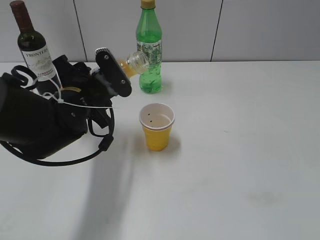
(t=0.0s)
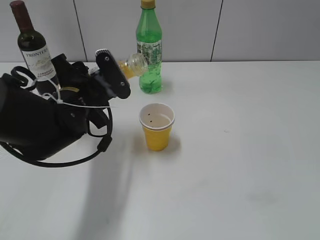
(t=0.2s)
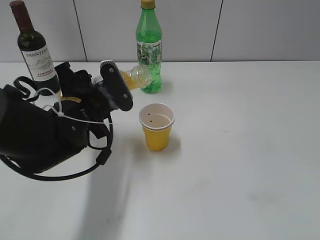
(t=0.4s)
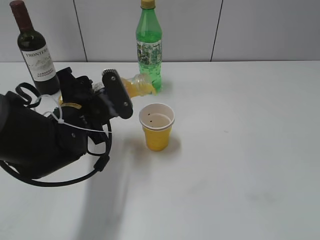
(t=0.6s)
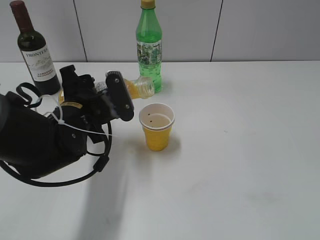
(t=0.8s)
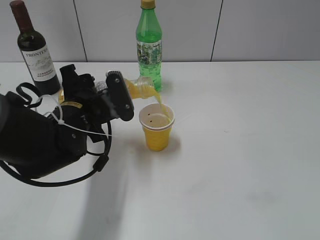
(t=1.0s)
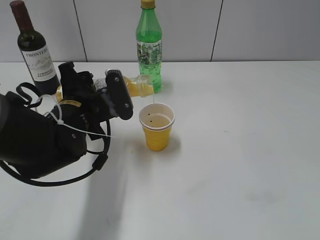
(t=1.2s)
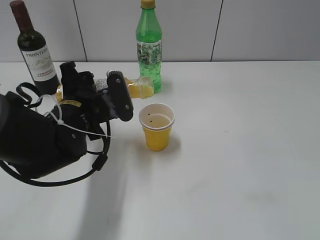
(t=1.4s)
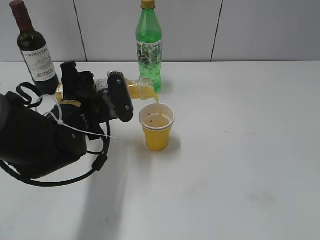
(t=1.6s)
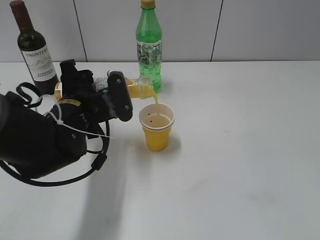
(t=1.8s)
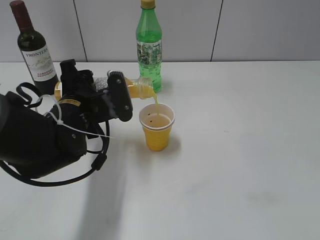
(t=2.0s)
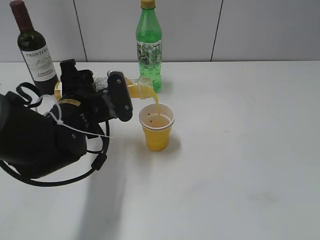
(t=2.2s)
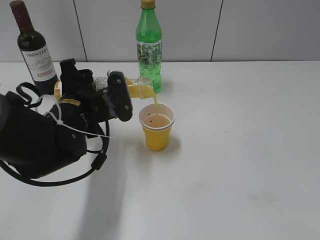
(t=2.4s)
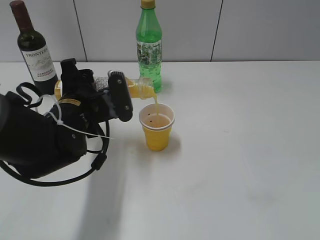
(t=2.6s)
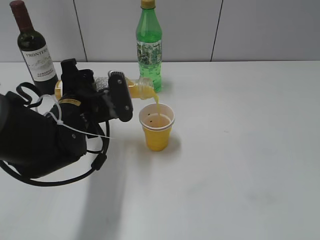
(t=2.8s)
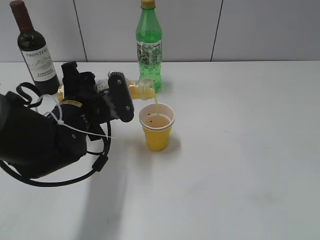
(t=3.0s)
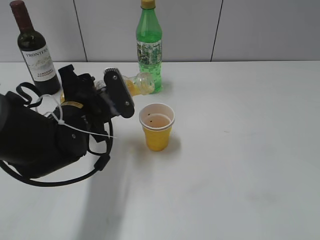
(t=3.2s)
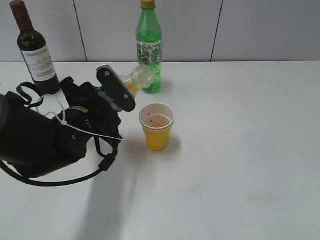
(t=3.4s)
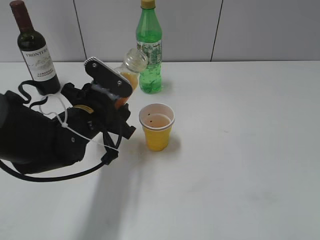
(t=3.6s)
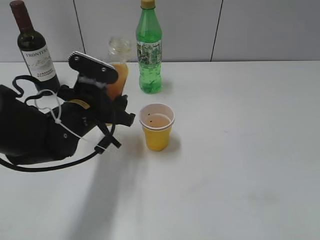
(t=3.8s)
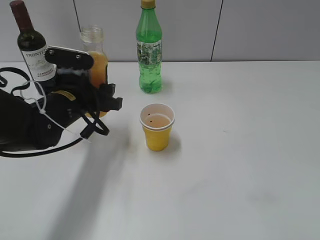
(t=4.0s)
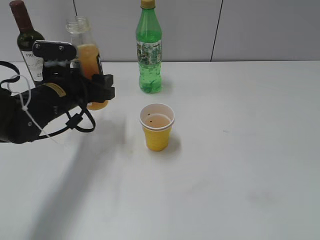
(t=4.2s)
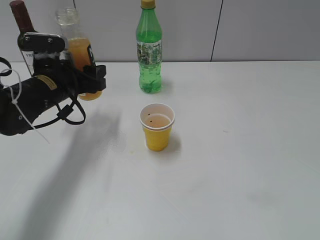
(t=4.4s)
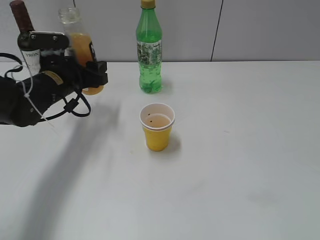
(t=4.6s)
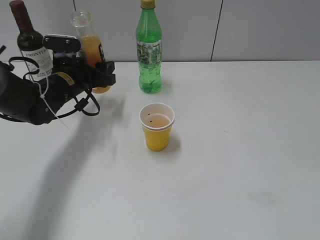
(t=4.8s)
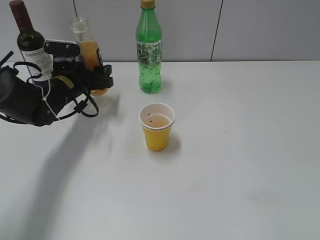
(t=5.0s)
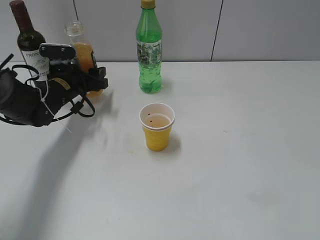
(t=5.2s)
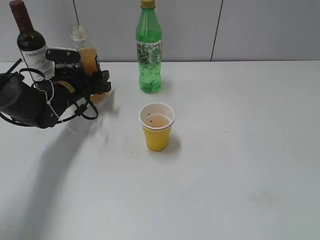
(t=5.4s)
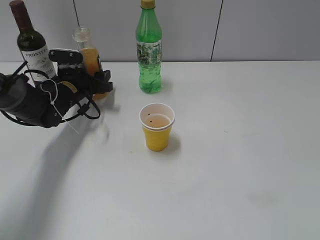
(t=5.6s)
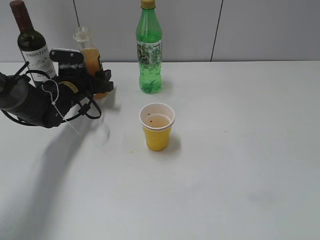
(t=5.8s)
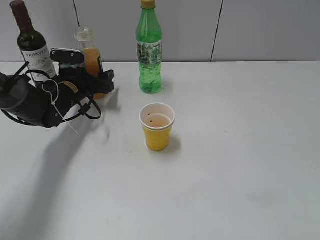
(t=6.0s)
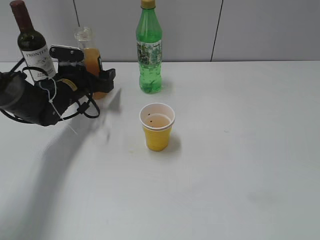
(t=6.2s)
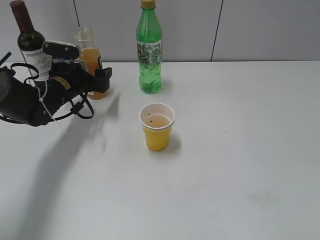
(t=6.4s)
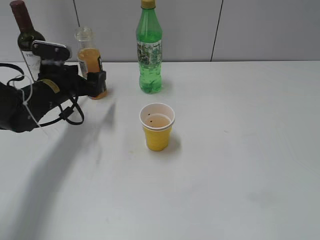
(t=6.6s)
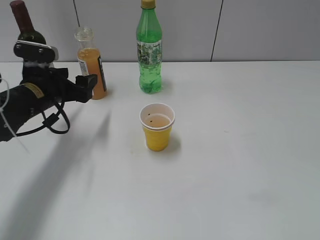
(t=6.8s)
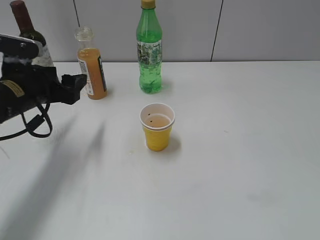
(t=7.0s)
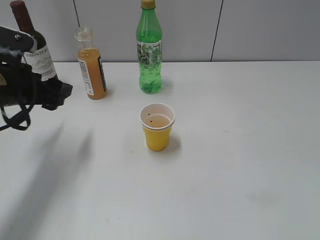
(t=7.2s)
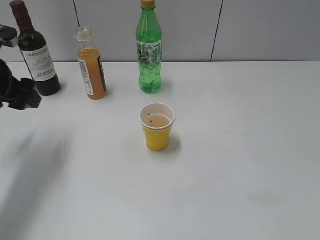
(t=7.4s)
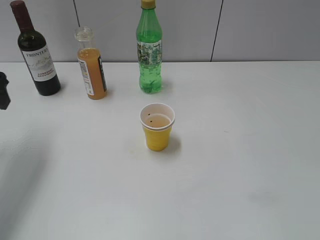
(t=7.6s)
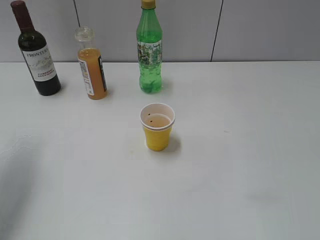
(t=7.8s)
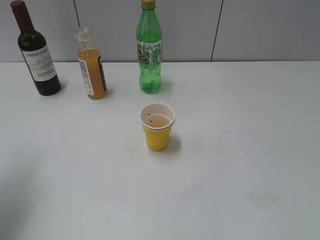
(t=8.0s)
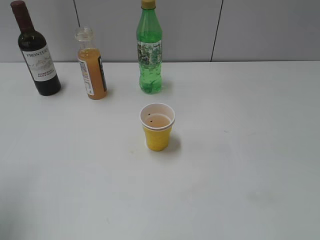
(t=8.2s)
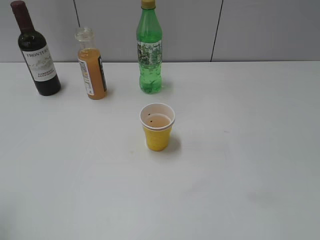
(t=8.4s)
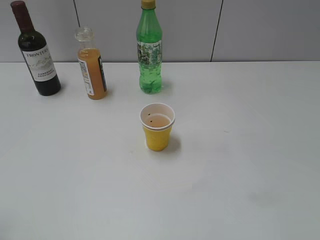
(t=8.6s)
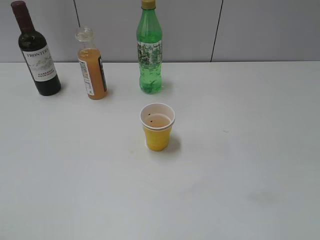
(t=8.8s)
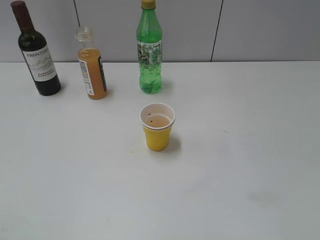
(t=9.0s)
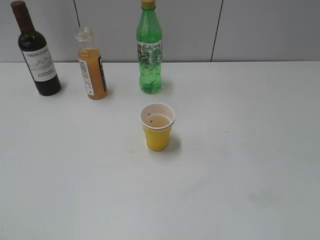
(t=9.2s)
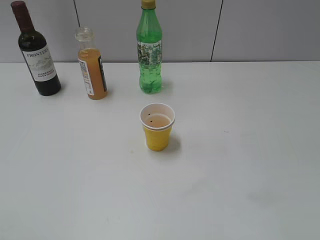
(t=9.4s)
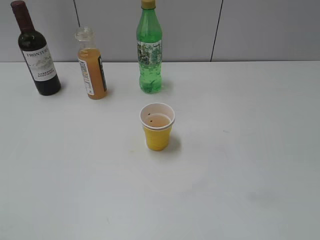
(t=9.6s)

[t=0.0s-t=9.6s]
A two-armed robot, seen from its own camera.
Step, t=0.0s to t=3.4s: Pour the orange juice from bottle to cup with left gripper.
Step, t=3.6s to t=6.4s: Place the orange juice bottle on the table with left gripper.
t=0.0s to t=1.6s: The grippers move only a little.
t=1.6s to t=3.2s: The grippers move only a little.
t=3.2s to t=4.8s: The left gripper travels forward and to the left by approximately 15 cm.
t=4.8s to t=6.4s: The left gripper opens.
t=6.4s to t=8.0s: The left gripper moves backward, upward and to the left, about 30 cm.
t=8.0s to t=9.6s: The left gripper is displaced backward by approximately 25 cm.
